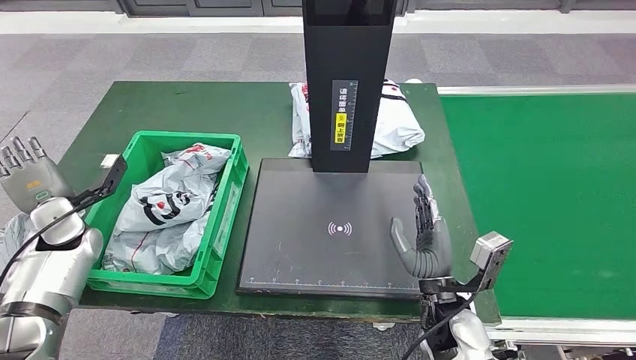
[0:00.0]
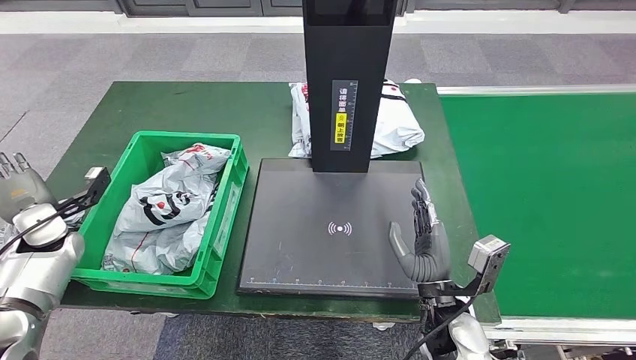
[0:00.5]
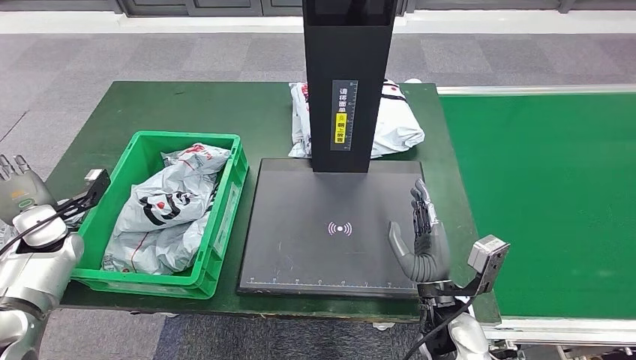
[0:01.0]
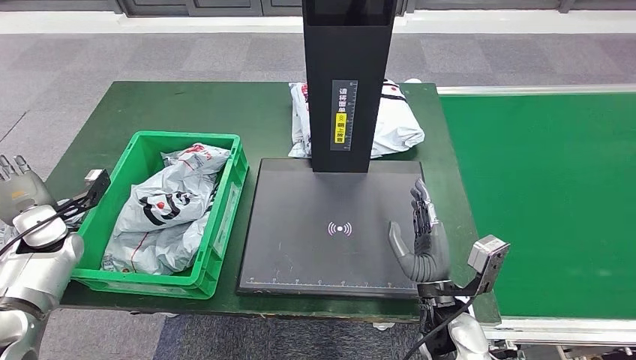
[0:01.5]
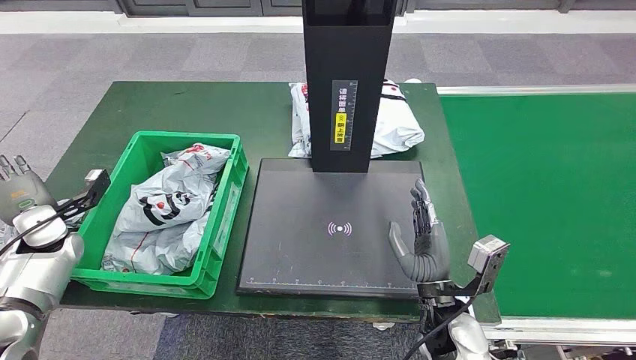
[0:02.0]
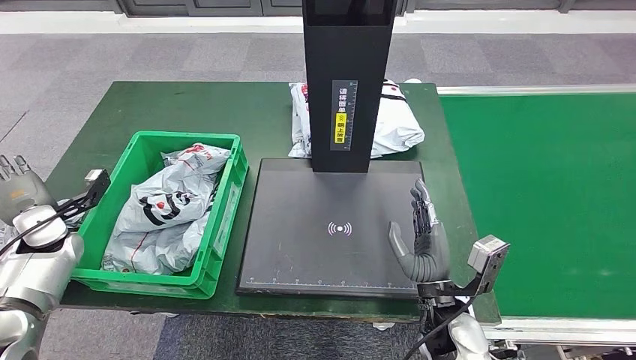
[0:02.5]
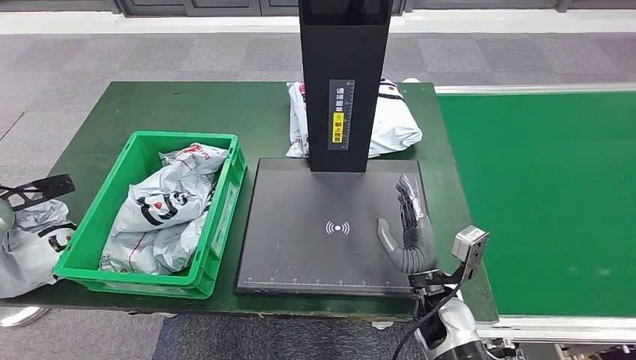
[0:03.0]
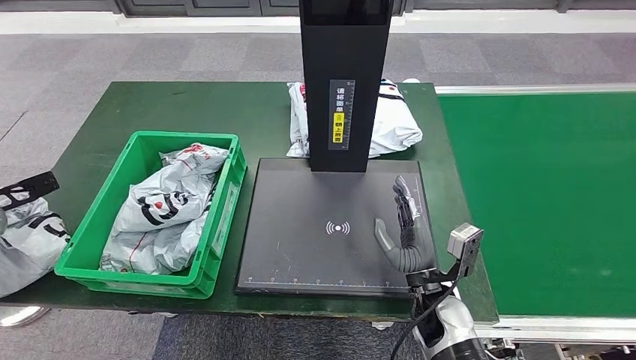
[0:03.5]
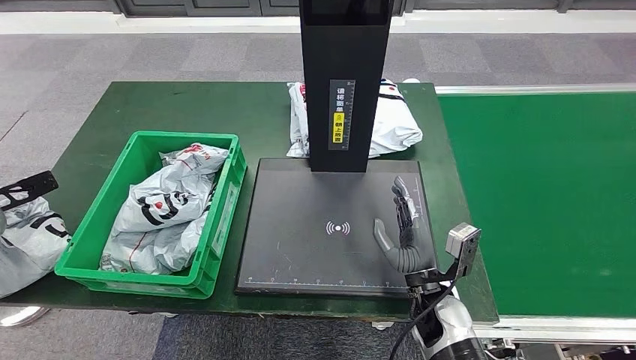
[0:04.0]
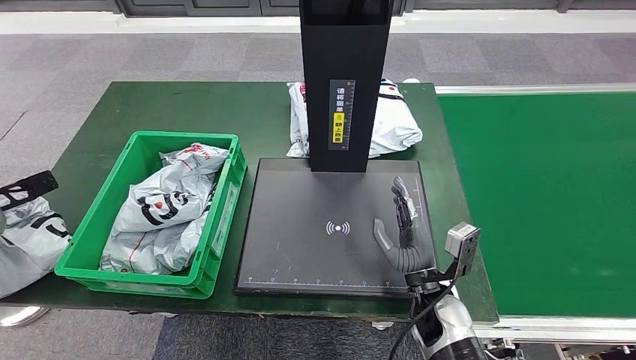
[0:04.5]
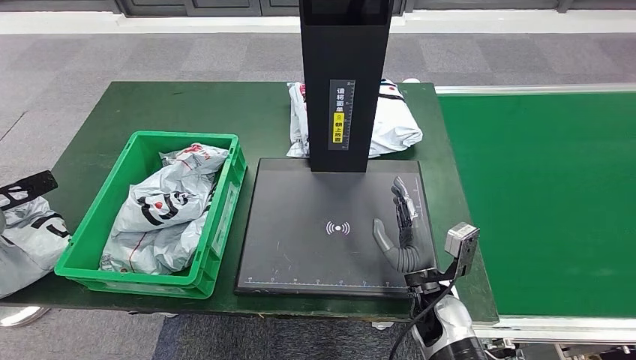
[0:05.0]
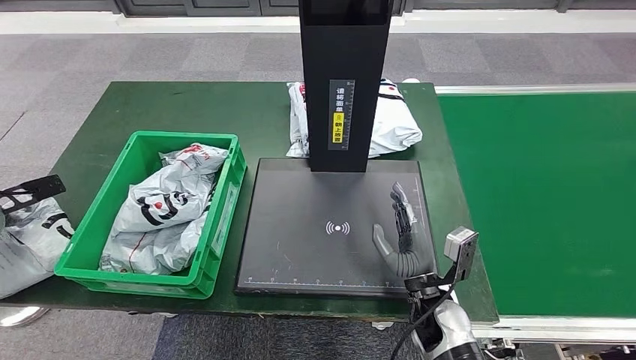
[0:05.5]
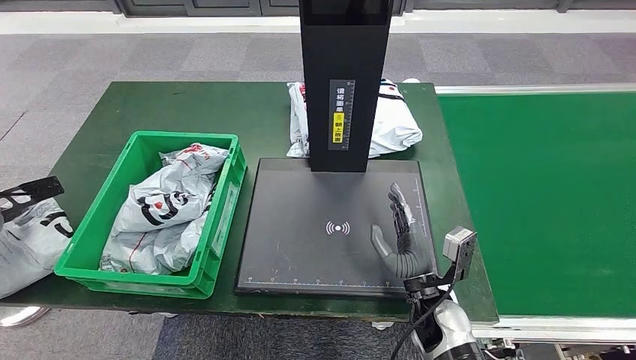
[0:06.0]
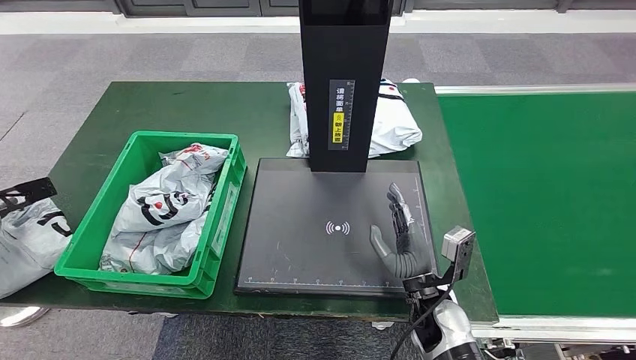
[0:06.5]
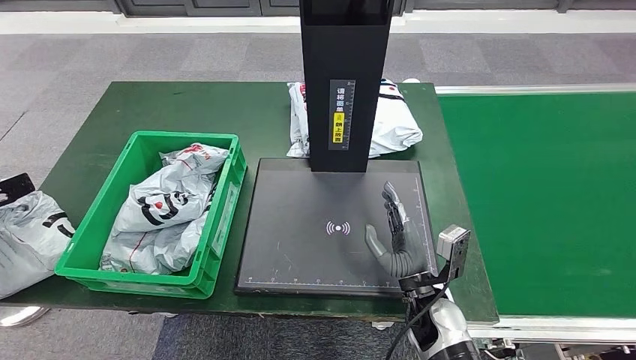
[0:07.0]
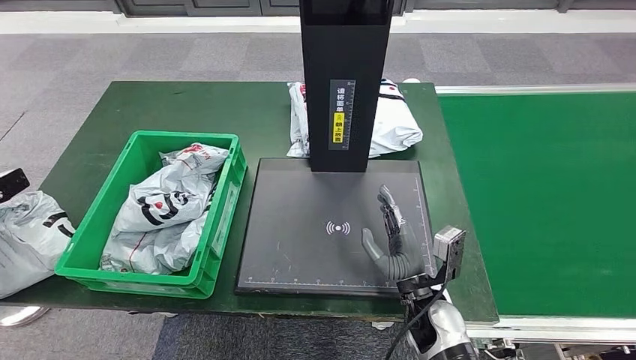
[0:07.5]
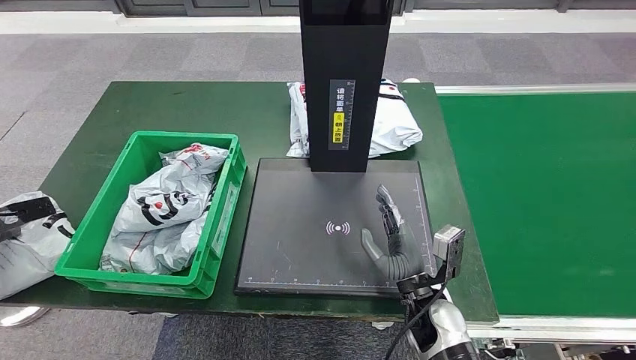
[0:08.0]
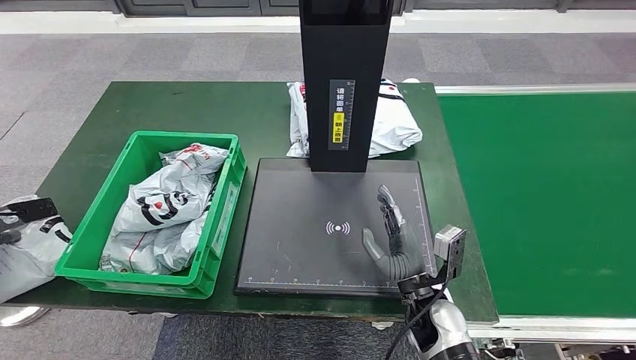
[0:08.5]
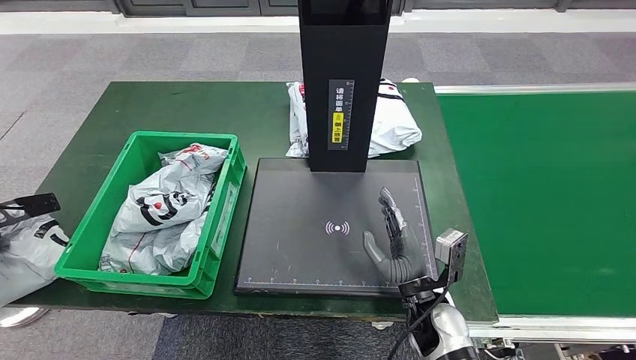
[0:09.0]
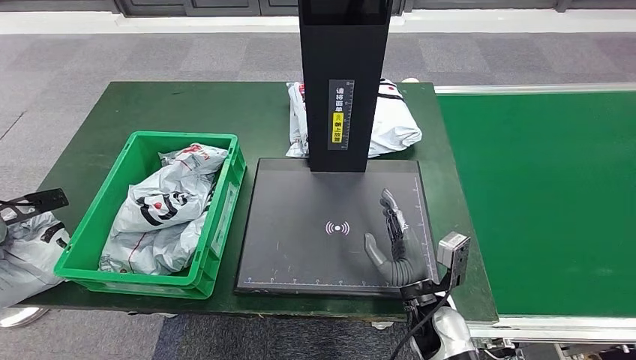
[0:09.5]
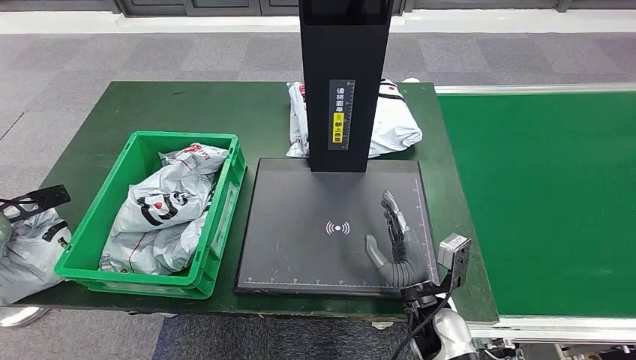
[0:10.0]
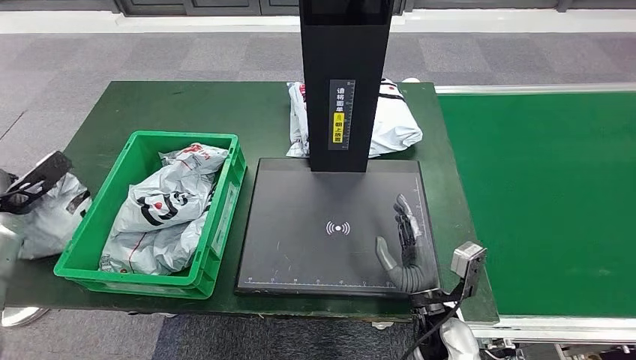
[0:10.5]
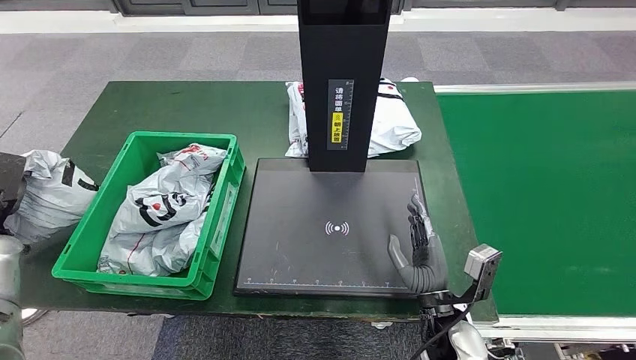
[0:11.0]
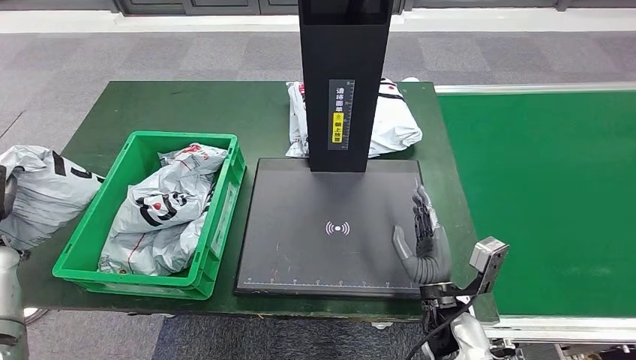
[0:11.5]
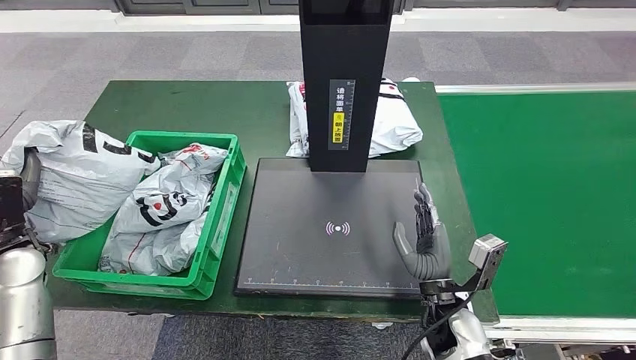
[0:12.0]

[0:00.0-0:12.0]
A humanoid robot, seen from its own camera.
0:00.0 to 0:02.0: The hands stay close to where they were, moving slightly.
0:02.0 to 0:04.0: The left hand travels to the left and upward by approximately 15 cm.
0:04.0 to 0:06.0: There are only small adjustments of the hands.
0:08.0 to 0:10.0: The hands move only a little.
0:10.0 to 0:12.0: The left hand moves to the right, about 15 cm.

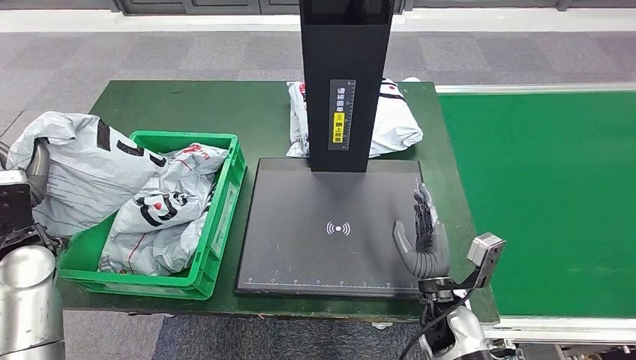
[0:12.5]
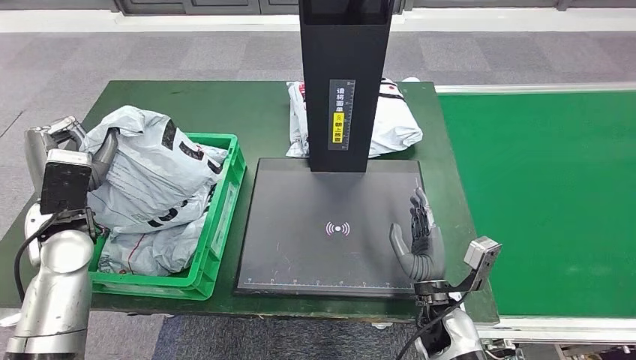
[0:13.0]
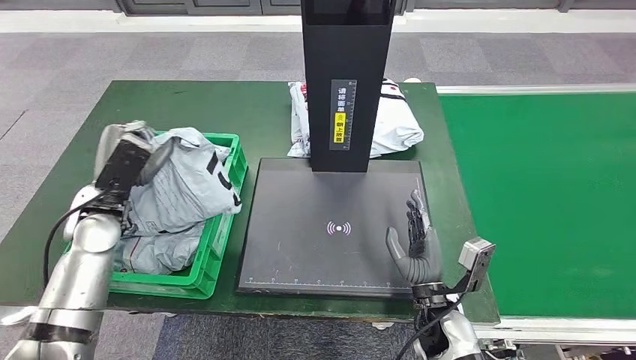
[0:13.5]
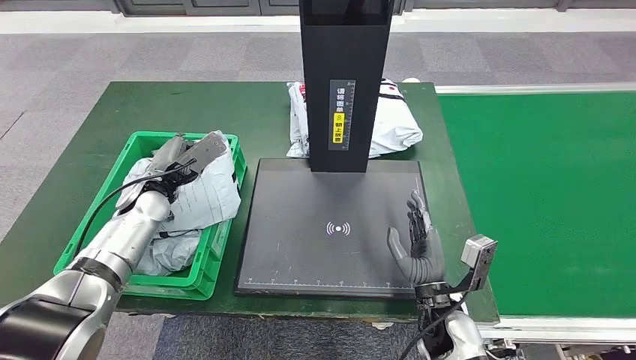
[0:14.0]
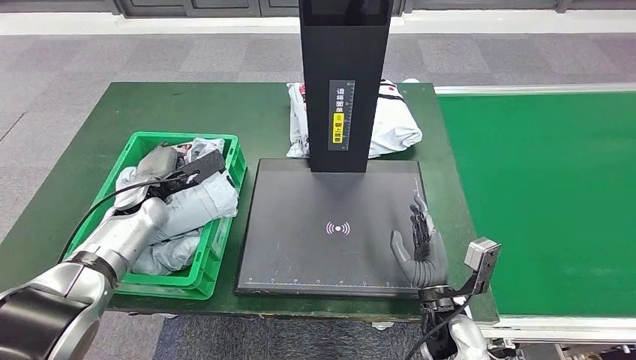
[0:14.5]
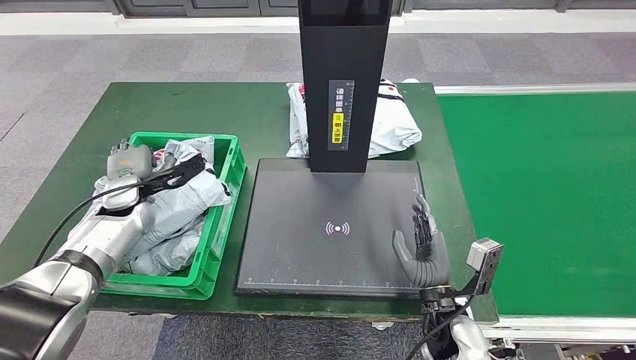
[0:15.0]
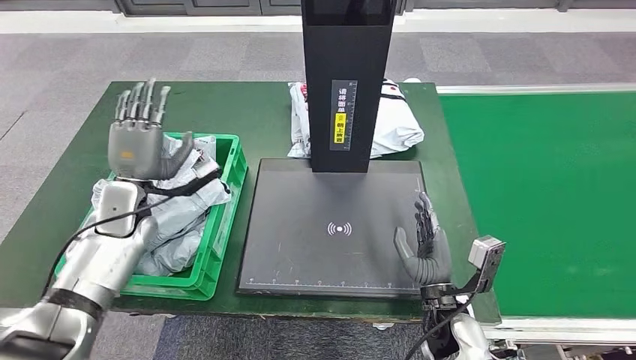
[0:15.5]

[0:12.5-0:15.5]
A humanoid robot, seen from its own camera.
Step, 0:12.5 to 0:15.5: Place the parcel into the delivery box.
0:12.5 to 0:14.0: The left hand travels forward and to the right by approximately 15 cm.
